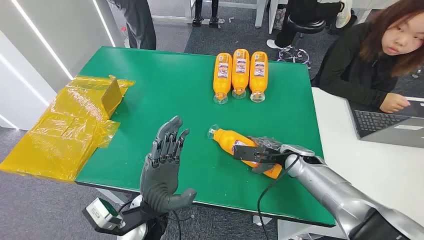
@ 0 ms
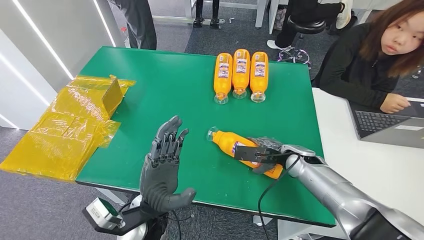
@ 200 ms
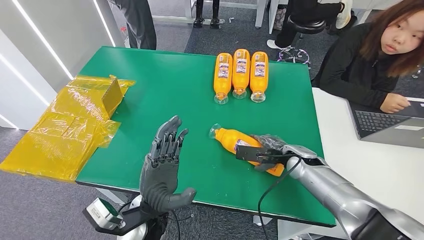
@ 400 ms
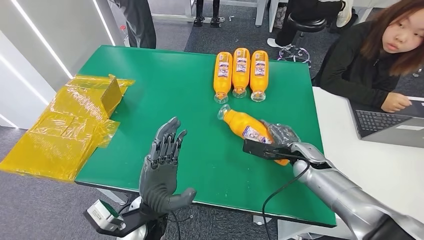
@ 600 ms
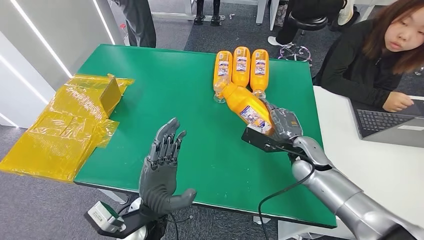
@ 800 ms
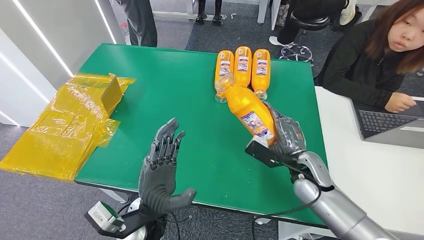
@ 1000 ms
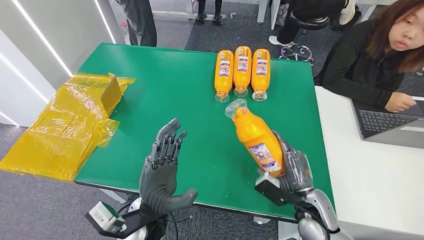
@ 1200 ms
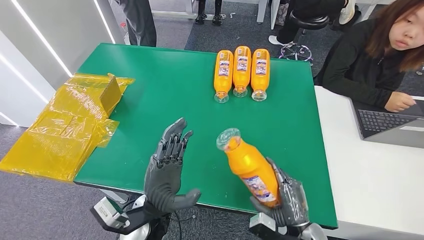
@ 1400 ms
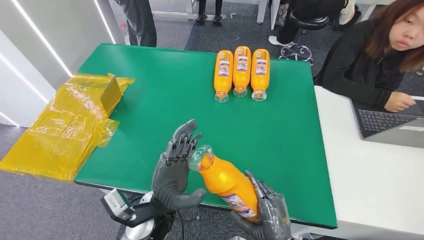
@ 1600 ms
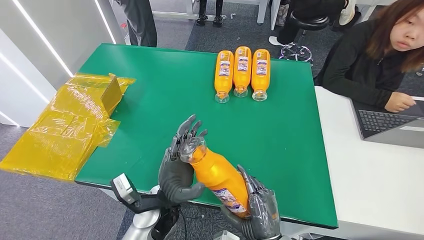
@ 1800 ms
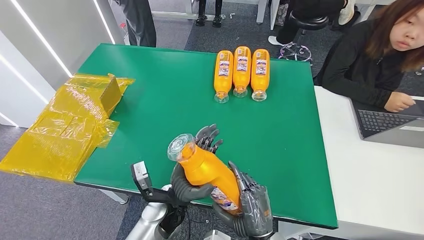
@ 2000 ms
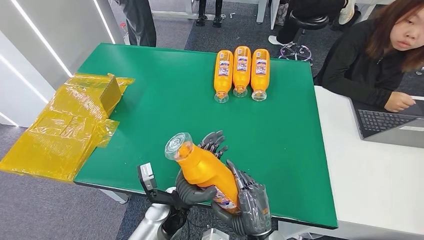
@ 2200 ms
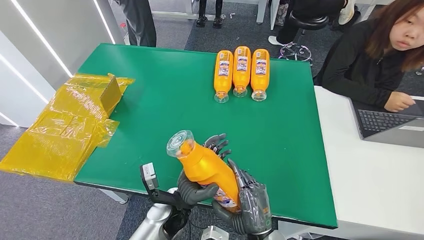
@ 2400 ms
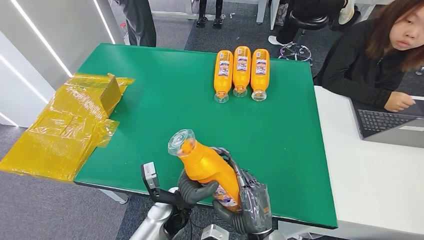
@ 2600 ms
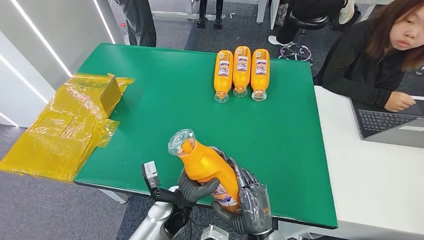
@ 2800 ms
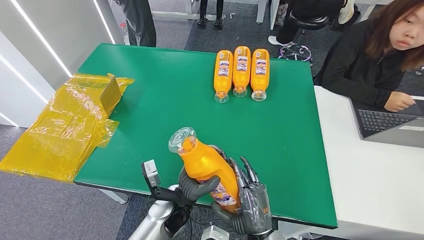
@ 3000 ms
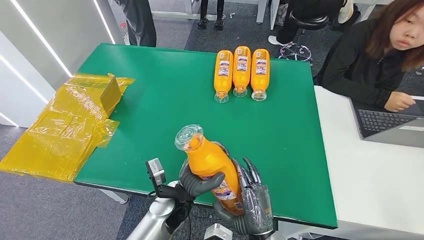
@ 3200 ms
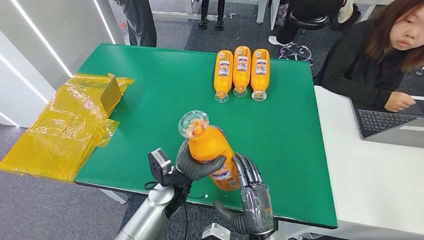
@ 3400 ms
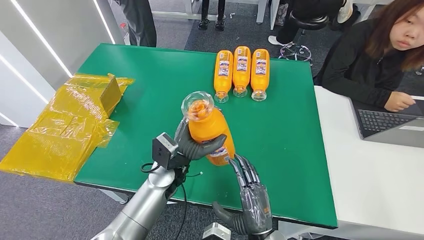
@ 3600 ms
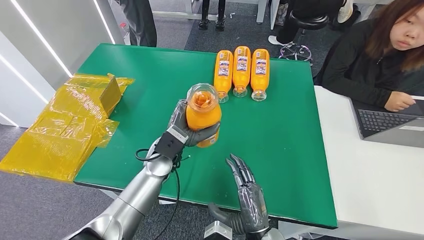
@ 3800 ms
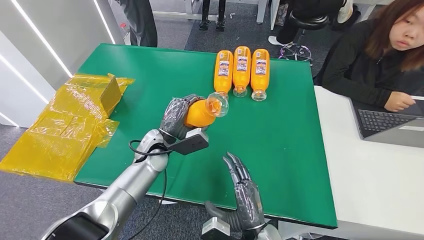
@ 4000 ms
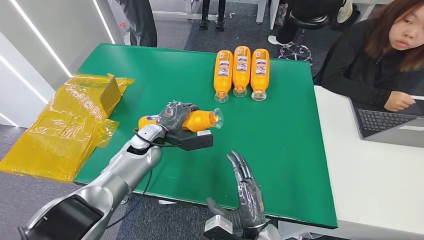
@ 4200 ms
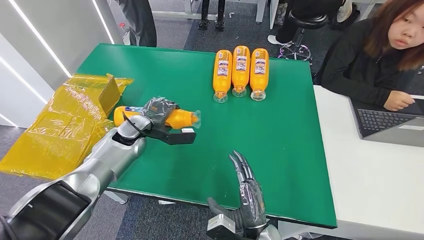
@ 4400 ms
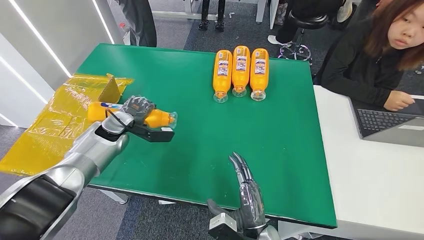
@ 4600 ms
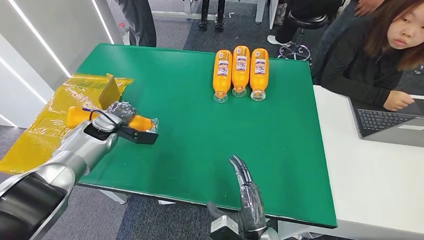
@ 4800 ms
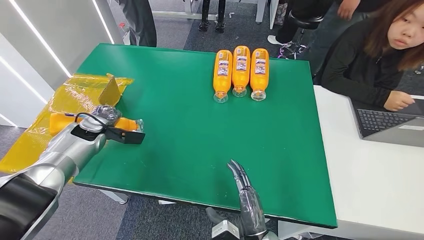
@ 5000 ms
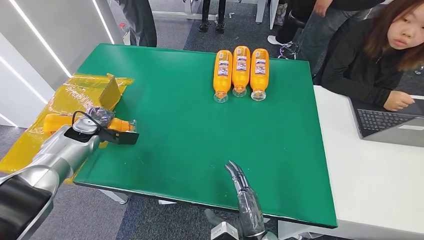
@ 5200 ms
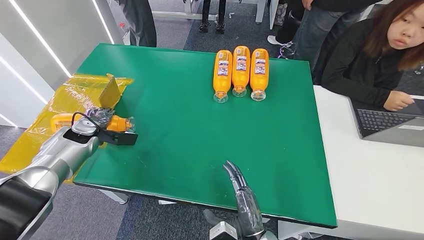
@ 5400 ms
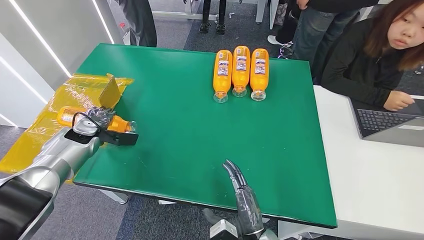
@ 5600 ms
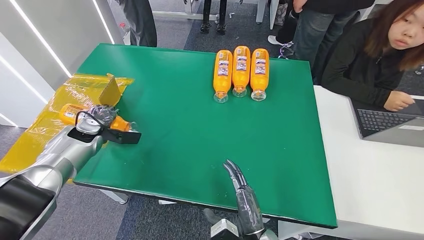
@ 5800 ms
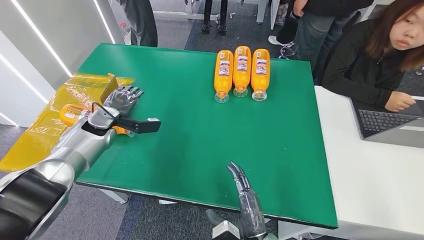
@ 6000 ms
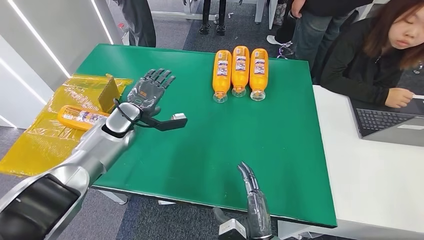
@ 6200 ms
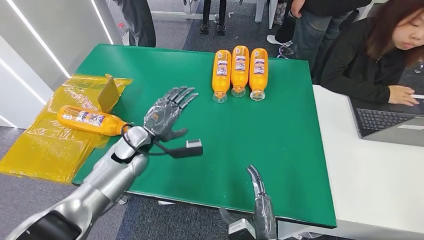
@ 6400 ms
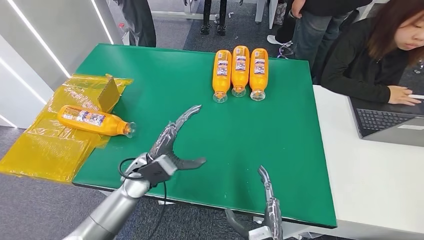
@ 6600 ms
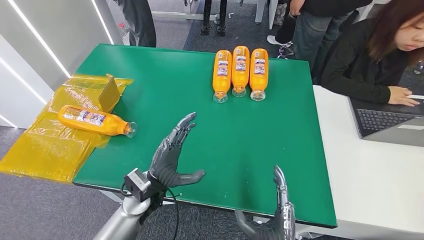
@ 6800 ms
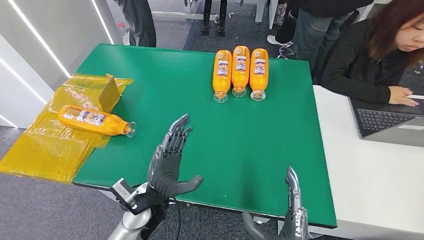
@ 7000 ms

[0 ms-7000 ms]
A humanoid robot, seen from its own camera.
Step, 0 ms to 2600 ms: Pick up the bottle from the table.
Step, 2800 ms to 7000 ms: Turn the bottle to the front side.
1400 ms to 2800 ms: The right hand travels to the left by roughly 10 cm. Meanwhile the left hand goes approximately 5 cm downward.
2800 ms to 4200 ms: The left hand is displaced forward and to the left by approximately 20 cm.
4200 ms to 5600 ms: The left hand heads to the left, covering some 20 cm.
5600 ms to 7000 ms: The left hand heads to the right and backward, covering approximately 35 cm; the right hand travels backward by about 5 cm.
